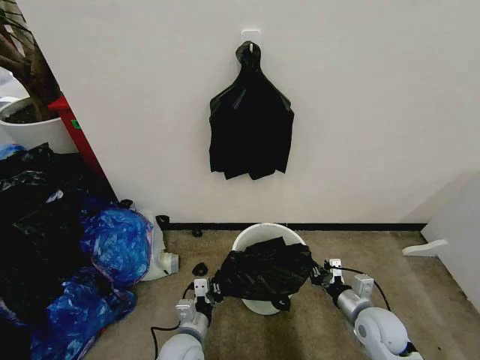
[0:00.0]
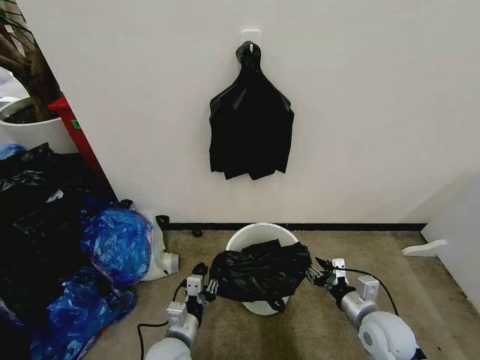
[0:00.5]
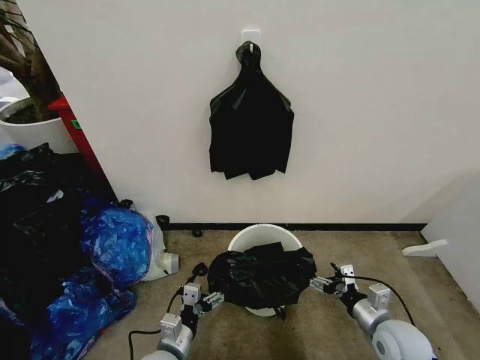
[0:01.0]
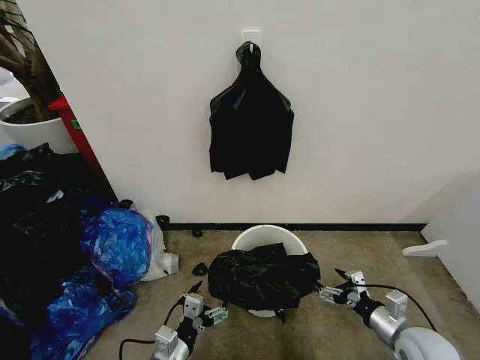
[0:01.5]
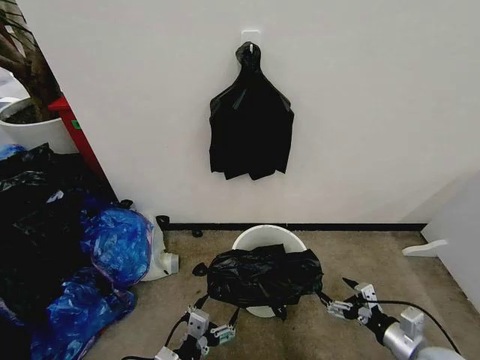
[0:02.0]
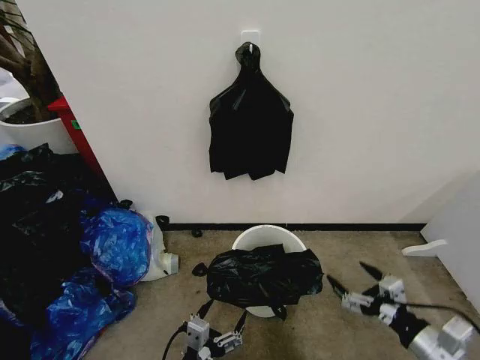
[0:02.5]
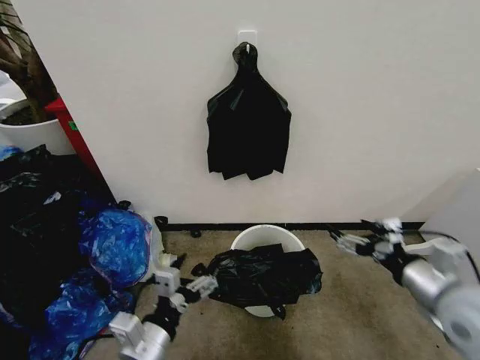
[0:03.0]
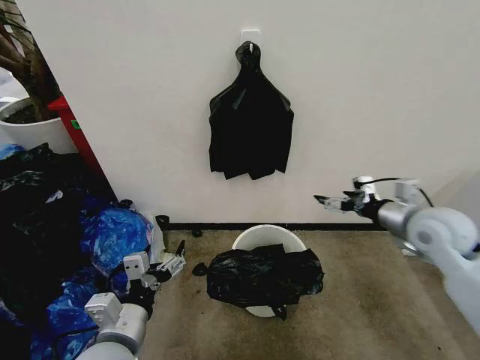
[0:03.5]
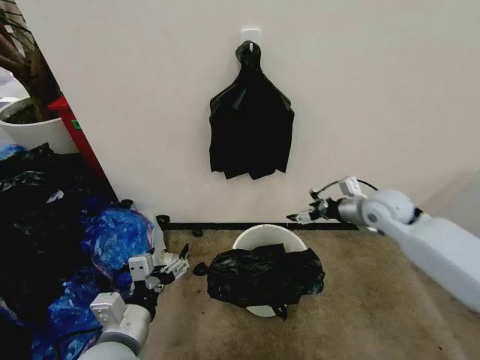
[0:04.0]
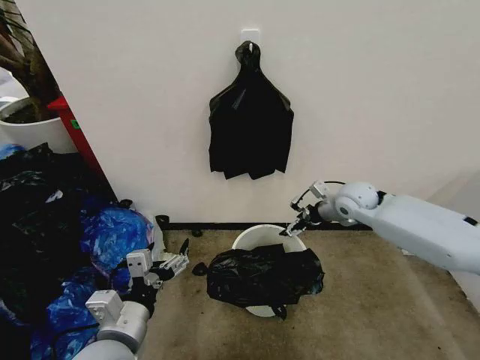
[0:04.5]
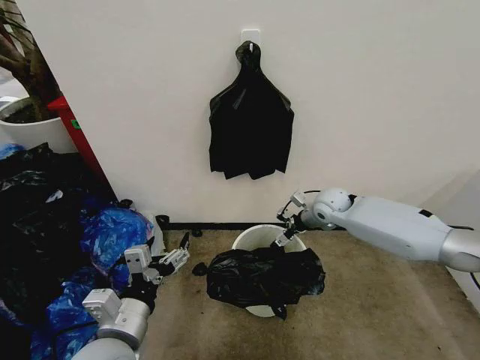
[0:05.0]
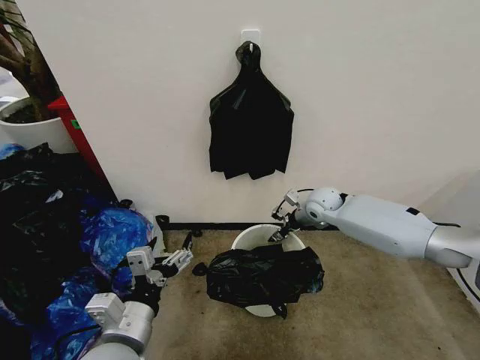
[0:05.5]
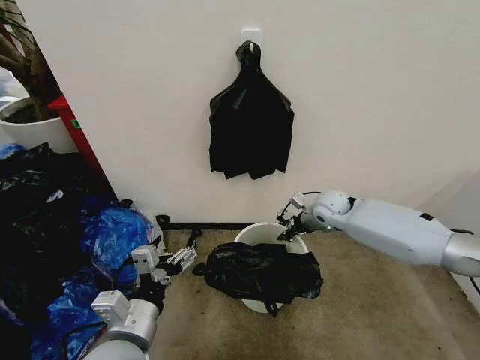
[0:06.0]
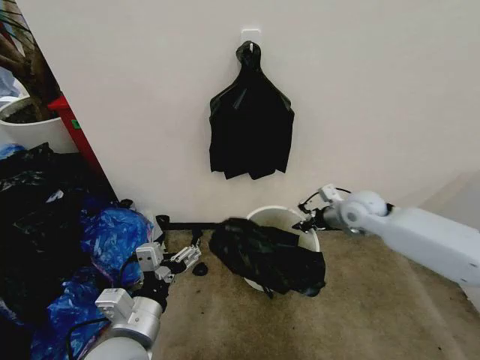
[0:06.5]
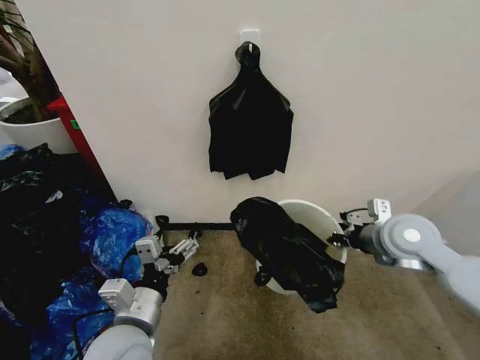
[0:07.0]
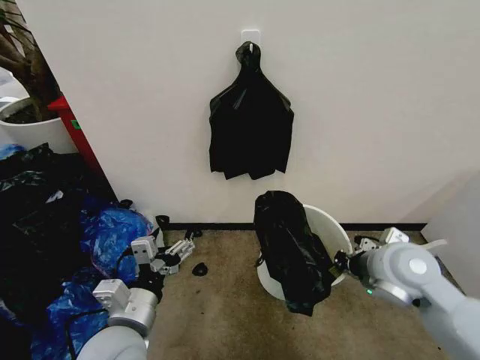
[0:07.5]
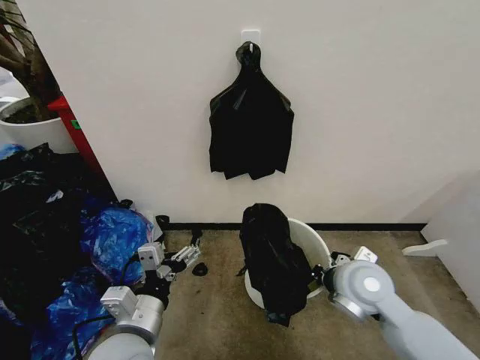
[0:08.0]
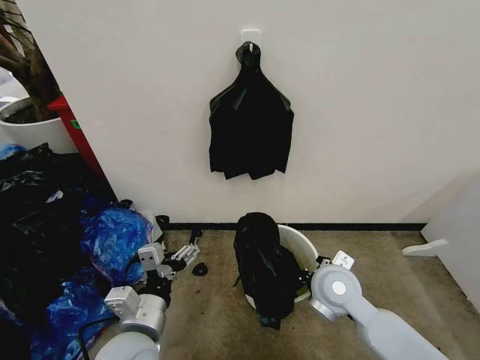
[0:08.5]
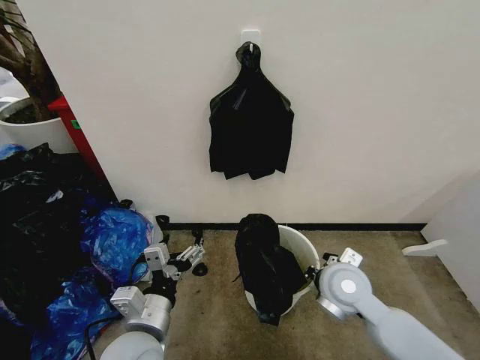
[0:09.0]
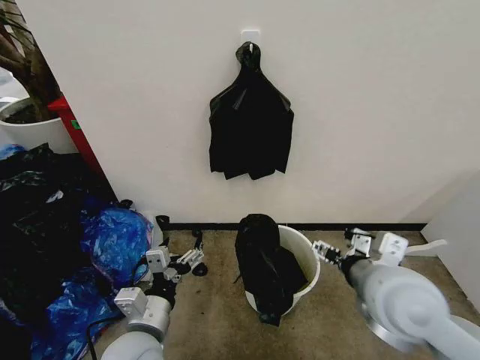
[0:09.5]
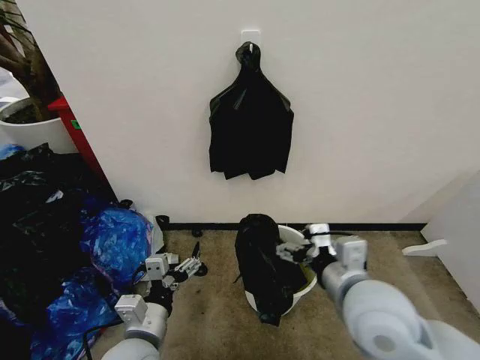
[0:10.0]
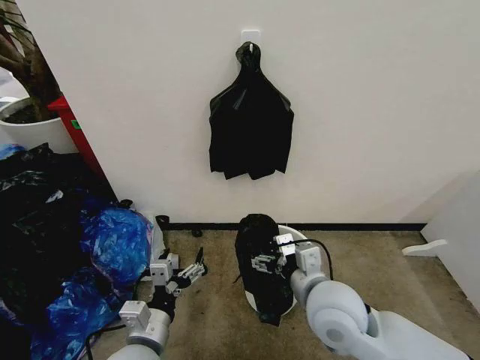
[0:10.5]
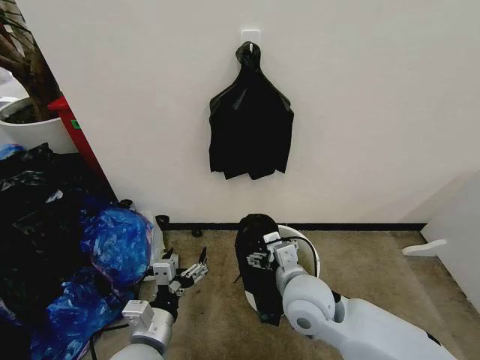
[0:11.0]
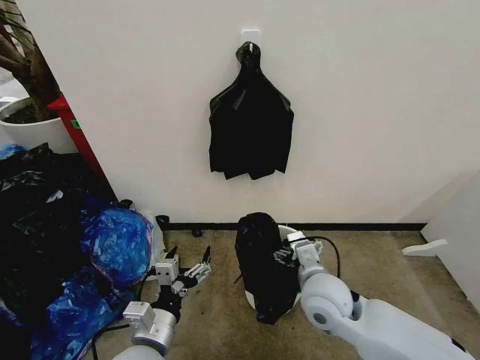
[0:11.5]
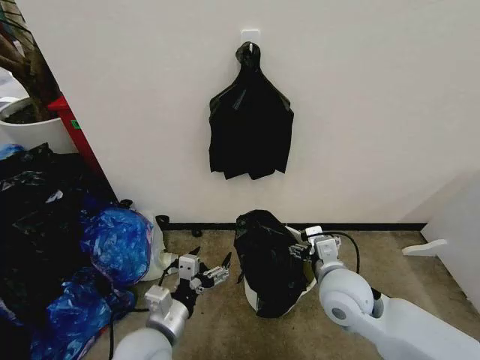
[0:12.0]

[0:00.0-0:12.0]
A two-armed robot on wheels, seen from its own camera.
Task of the whole recording: Place the garbage bag over the trash bin.
0:00.0 to 0:02.0: The right gripper goes about 10 cm backward and to the right, and opens its fingers; the left gripper is displaced backward and upward by roughly 10 cm, and opens.
0:02.0 to 0:04.0: The left gripper travels upward by roughly 15 cm. The right gripper moves forward and upward, some 35 cm.
0:04.0 to 0:06.0: The right gripper is displaced to the left, downward and forward by some 15 cm, and closes.
0:06.0 to 0:08.0: The right gripper goes some 25 cm backward.
0:08.0 to 0:10.0: The right gripper moves backward and upward, roughly 10 cm, and opens up.
0:10.0 to 0:12.0: The right gripper shifts some 10 cm downward and forward.

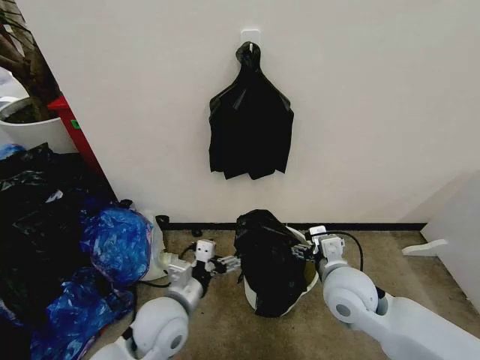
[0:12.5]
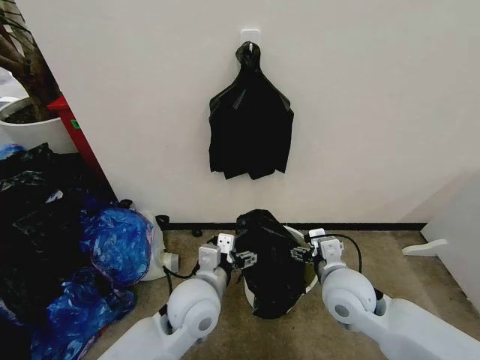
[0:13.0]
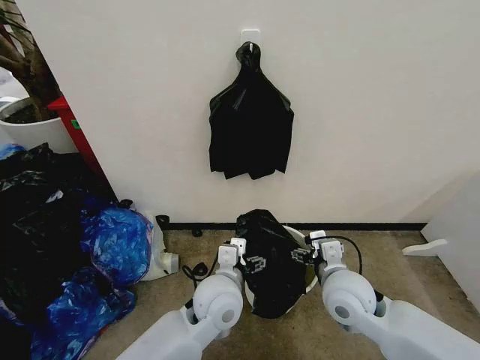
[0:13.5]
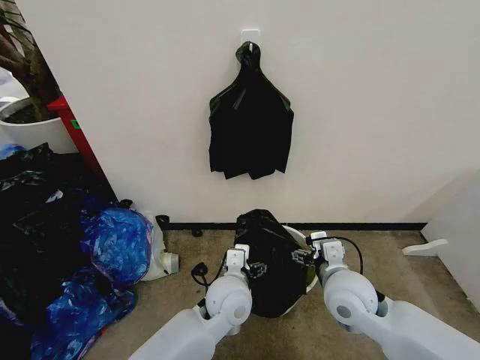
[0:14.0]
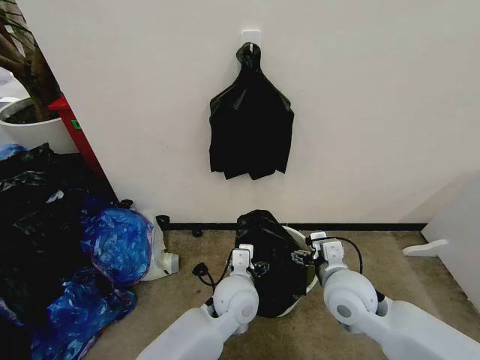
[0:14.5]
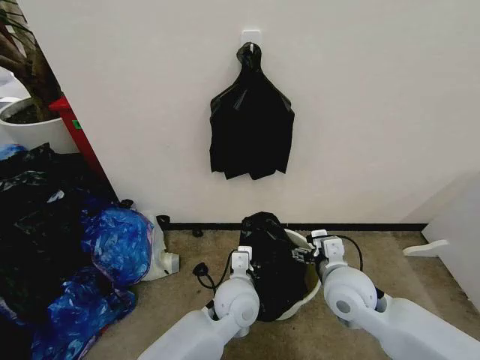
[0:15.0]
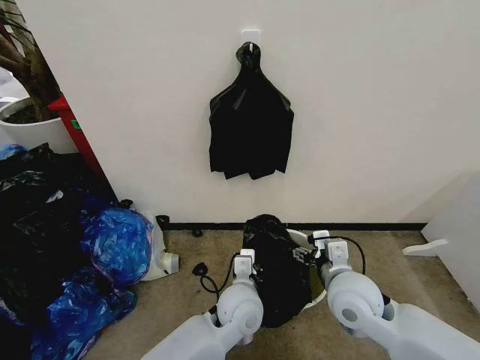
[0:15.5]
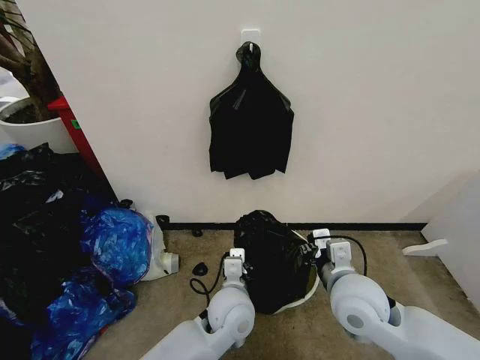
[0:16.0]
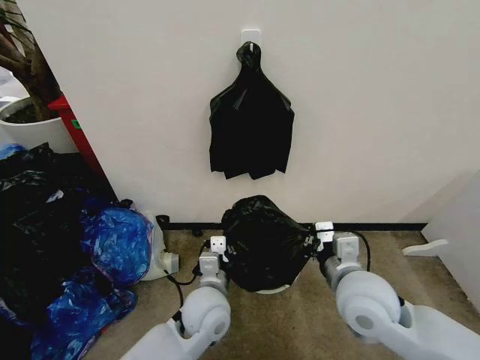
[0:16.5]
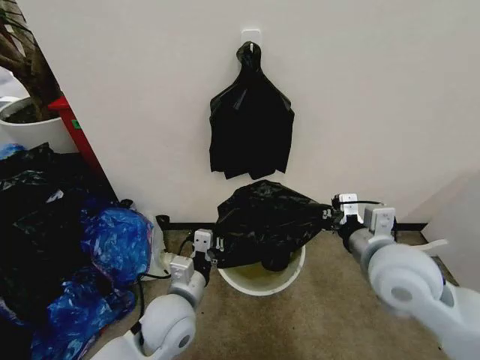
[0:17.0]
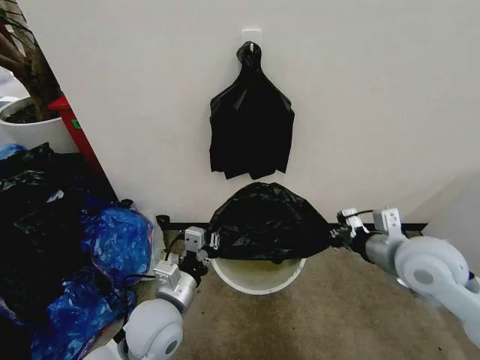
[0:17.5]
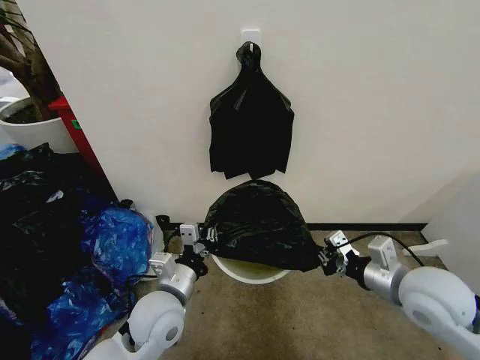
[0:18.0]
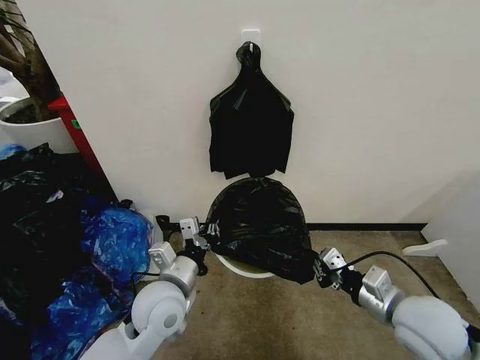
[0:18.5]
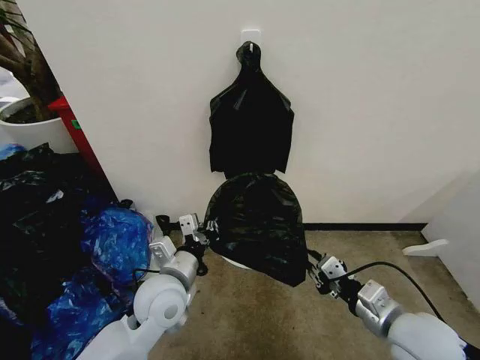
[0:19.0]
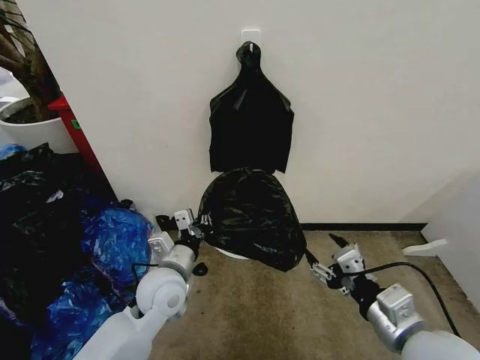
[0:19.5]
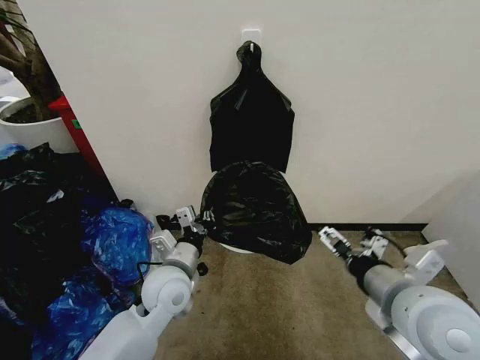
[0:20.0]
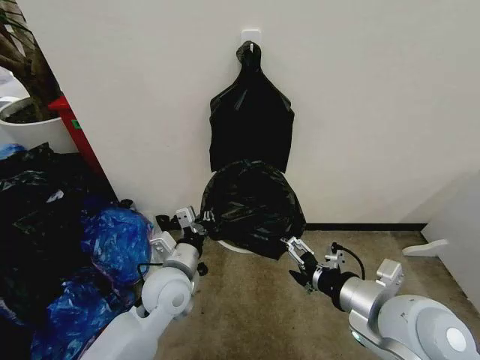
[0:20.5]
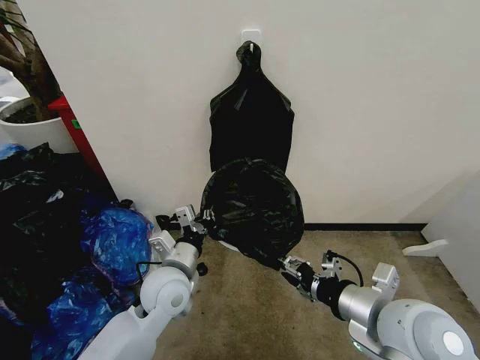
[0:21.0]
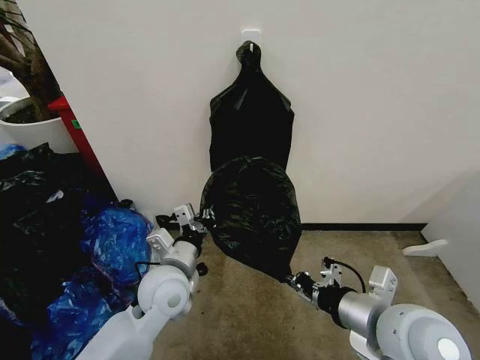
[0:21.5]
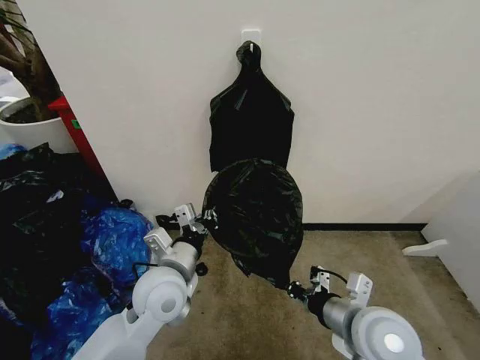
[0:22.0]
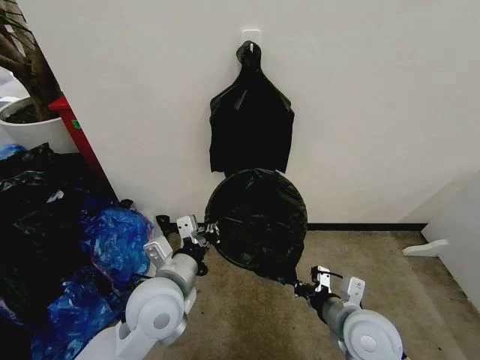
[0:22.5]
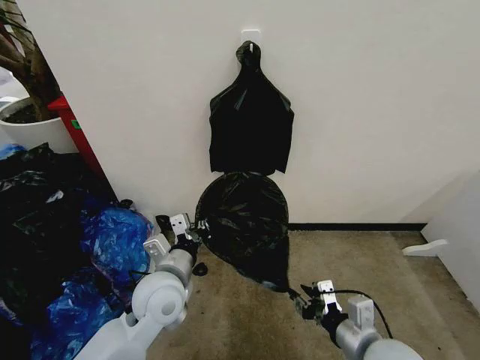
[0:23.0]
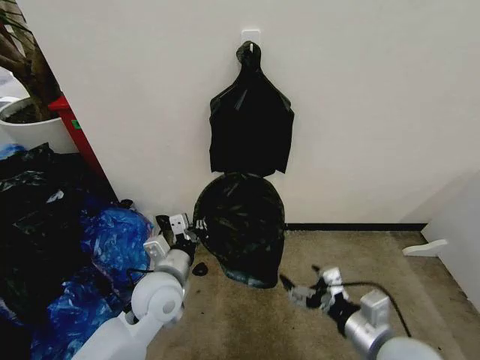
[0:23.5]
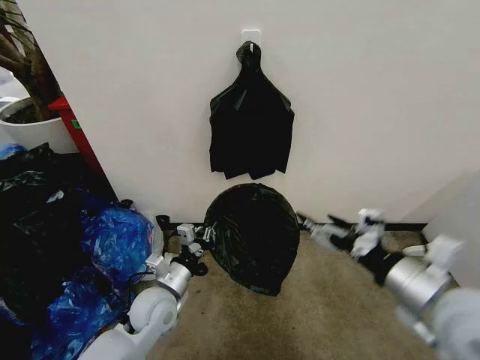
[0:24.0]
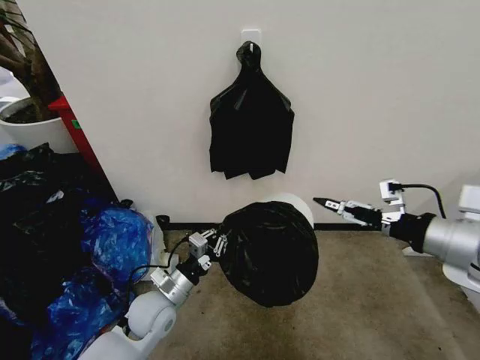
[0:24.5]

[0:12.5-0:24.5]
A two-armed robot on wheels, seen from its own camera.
Task of the whole recording: Place the garbage bag over the trash bin.
0:12.5 to 0:14.5: The left gripper moves to the right, roughly 15 cm.
0:14.5 to 0:16.5: The left gripper shifts some 5 cm to the left, and closes up, while the right gripper shifts roughly 5 cm upward, and closes its fingers.
0:16.5 to 0:18.5: The left gripper travels to the left by some 10 cm, while the right gripper goes some 10 cm to the right.
0:18.5 to 0:20.5: The right gripper heads upward and to the left, covering some 10 cm, and opens its fingers.
0:20.5 to 0:22.5: The right gripper shifts about 15 cm downward, and closes its fingers; the left gripper is displaced upward by roughly 5 cm.
0:22.5 to 0:24.5: The left gripper goes about 15 cm downward. The right gripper is displaced upward and to the right by some 25 cm, and opens its fingers.

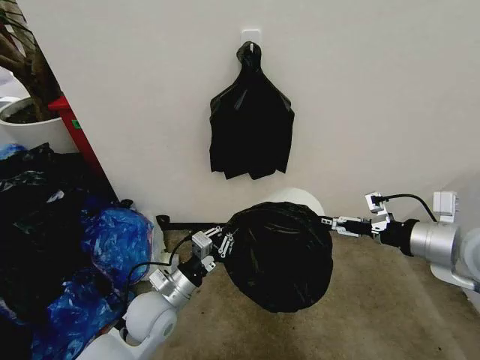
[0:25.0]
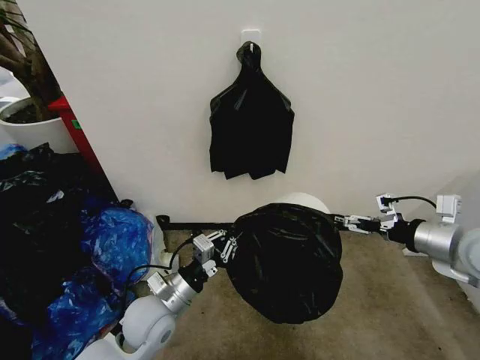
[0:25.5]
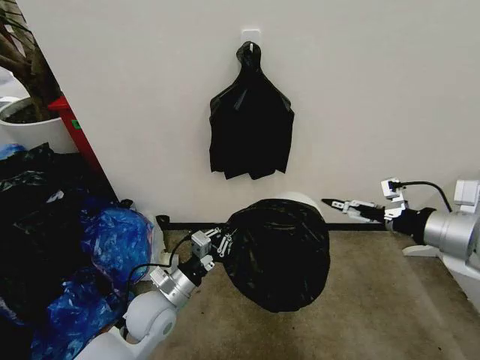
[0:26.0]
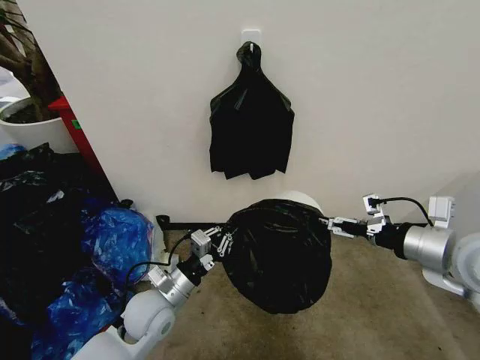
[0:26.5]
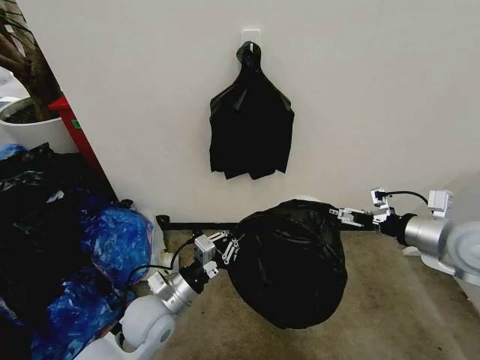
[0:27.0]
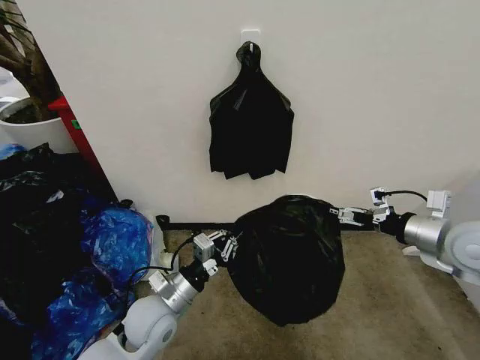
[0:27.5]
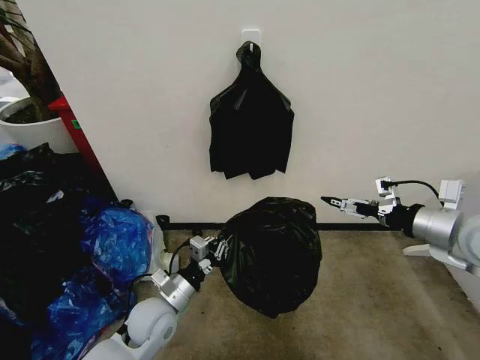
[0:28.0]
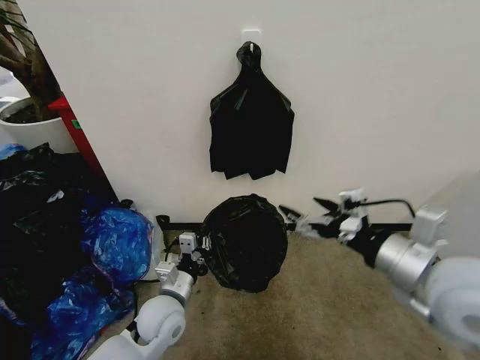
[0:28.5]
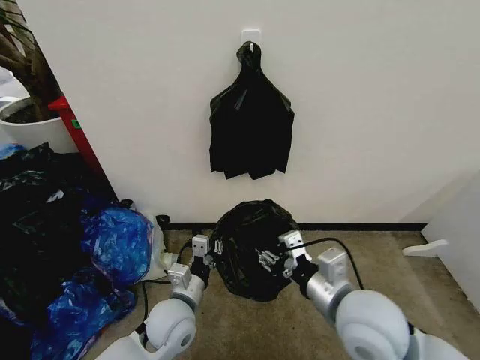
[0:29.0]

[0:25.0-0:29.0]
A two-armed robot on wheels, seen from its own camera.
Task of the whole recording: Place the garbage bag over the trash bin.
0:25.0 to 0:27.0: The right gripper changes place by approximately 5 cm.
0:27.0 to 0:29.0: The right gripper moves to the left and backward, roughly 25 cm, and closes up.
